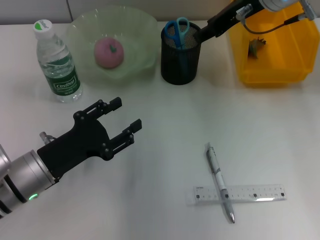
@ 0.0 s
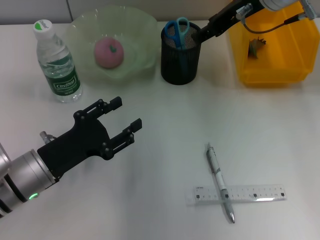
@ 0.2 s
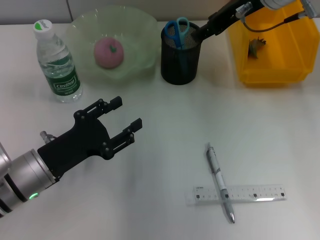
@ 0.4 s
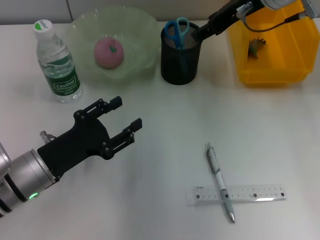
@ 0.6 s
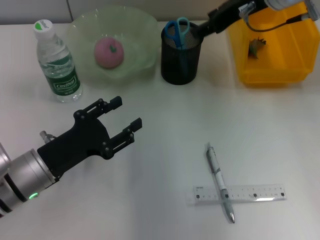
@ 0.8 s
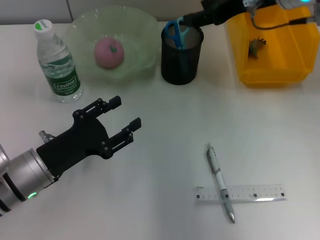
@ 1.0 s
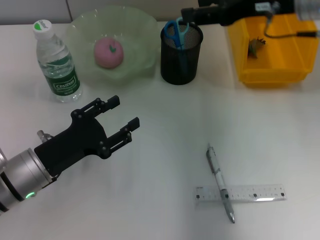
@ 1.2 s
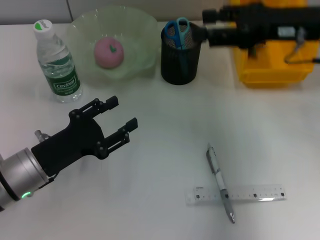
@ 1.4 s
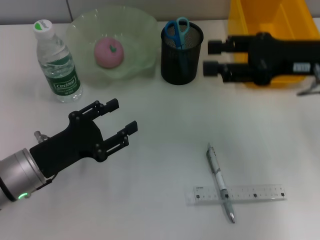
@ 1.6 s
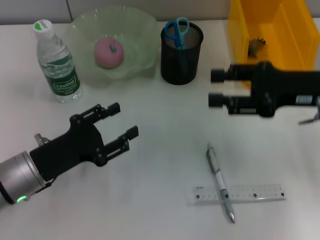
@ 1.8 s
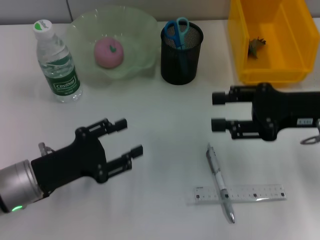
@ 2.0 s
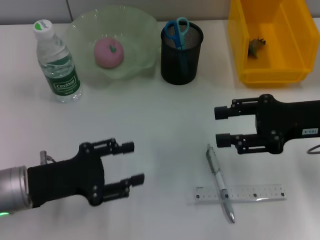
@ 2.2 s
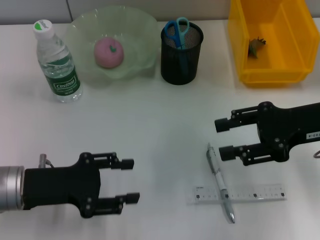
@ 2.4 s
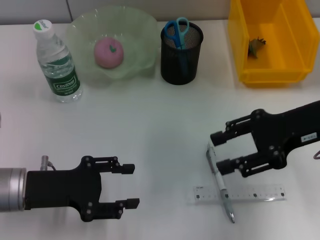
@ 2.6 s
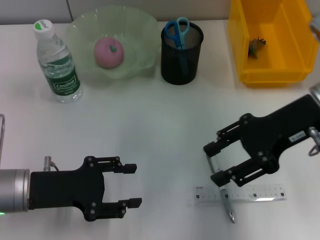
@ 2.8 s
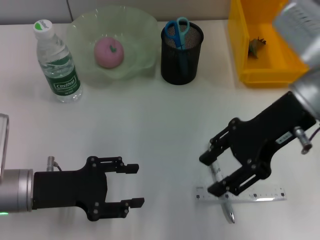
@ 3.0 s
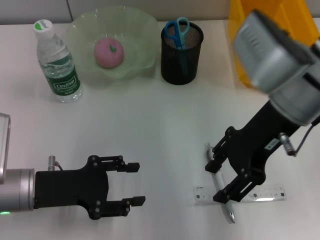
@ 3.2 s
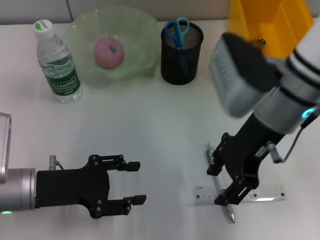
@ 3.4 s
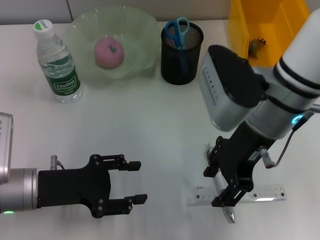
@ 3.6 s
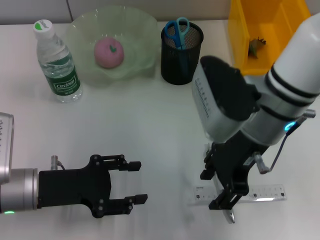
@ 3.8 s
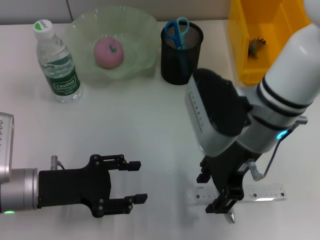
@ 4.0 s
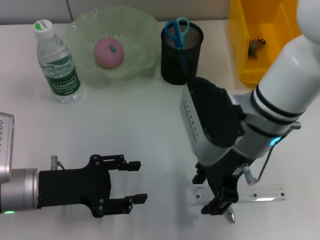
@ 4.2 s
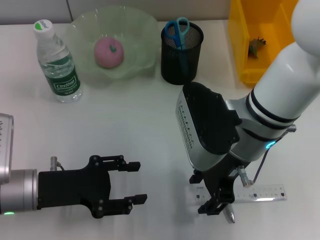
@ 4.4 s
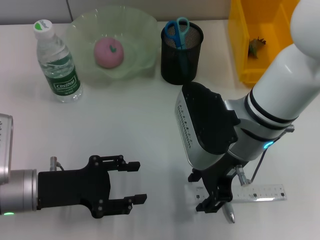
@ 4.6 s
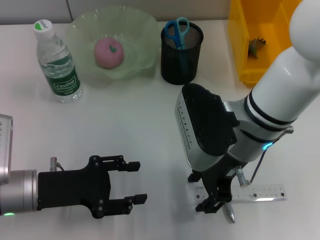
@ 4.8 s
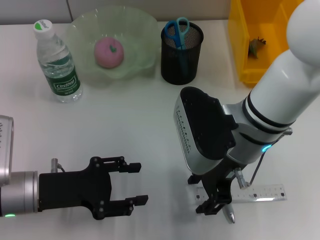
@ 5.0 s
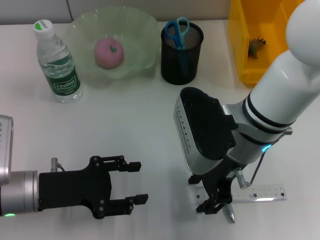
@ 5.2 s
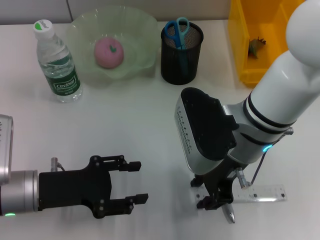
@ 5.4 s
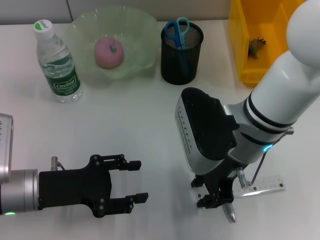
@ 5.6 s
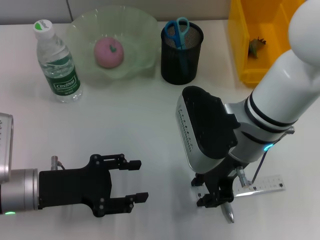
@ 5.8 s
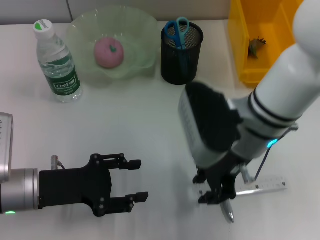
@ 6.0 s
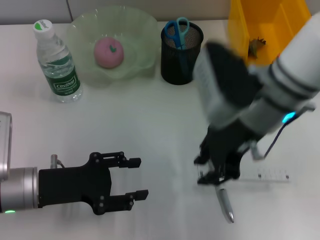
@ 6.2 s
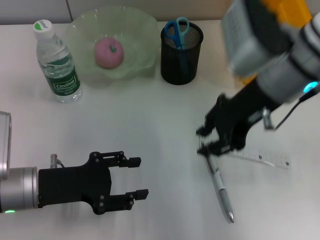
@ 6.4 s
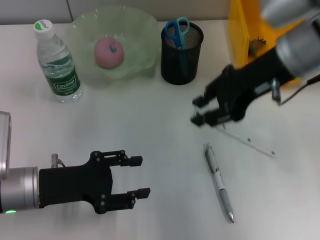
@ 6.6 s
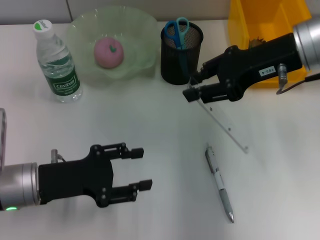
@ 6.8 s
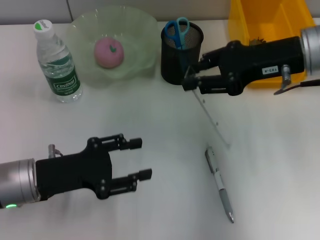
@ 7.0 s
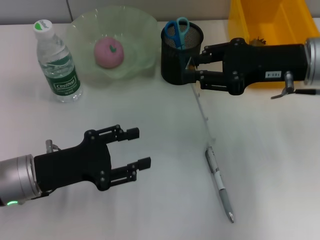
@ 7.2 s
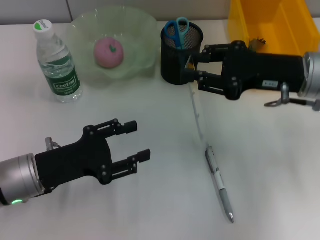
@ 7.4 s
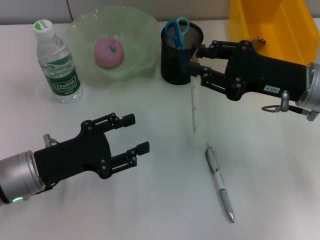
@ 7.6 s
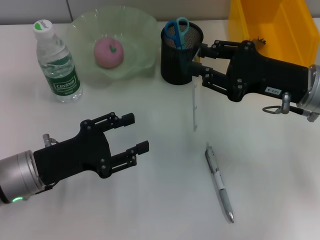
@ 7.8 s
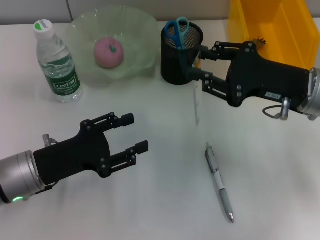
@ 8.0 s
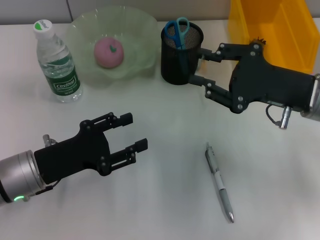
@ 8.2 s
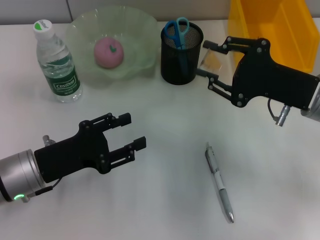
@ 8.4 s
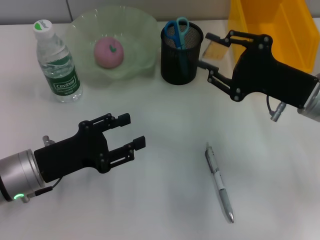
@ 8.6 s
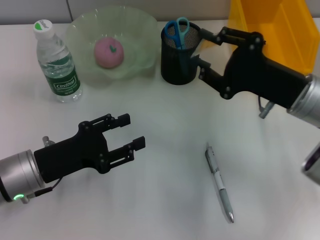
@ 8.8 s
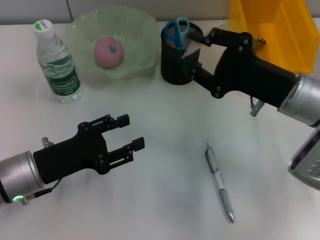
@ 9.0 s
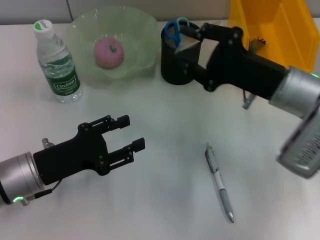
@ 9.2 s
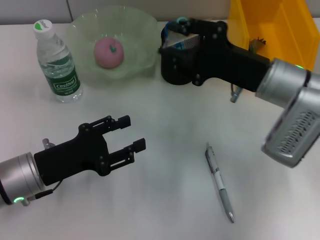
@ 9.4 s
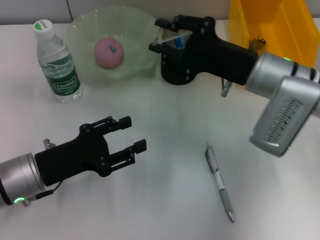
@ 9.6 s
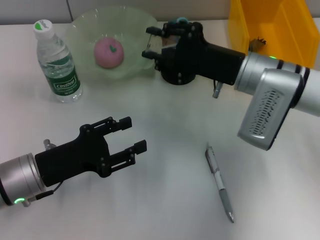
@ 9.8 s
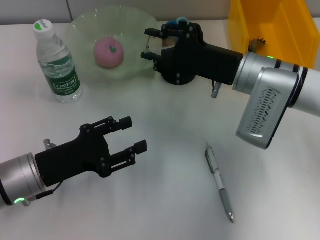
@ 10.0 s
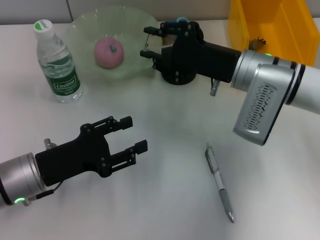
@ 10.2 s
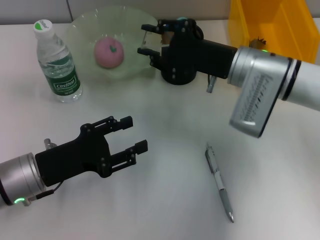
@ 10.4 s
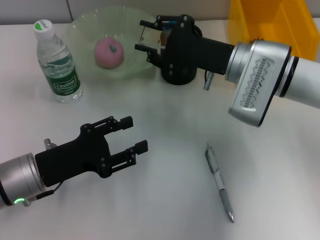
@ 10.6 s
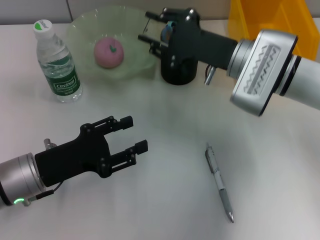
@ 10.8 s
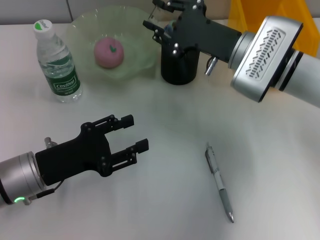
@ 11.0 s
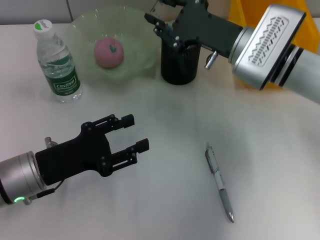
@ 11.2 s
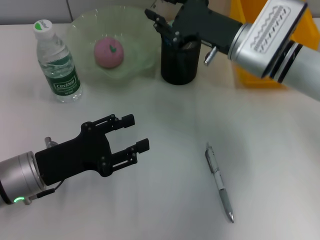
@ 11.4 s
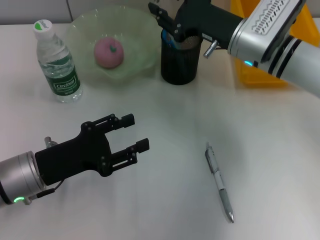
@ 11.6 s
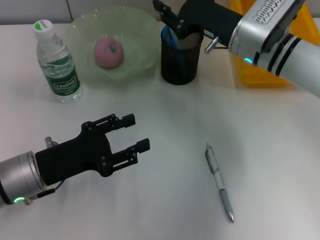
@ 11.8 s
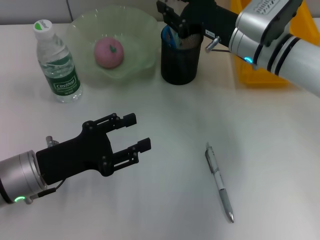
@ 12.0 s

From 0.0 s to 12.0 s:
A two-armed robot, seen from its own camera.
Step, from 0.2 s to 5.6 s: Grab the ruler with the right hand.
From 0.0 s to 1.6 s: The right gripper goes about 15 cm backward, to the right and downward, and opens.
From 1.6 s to 3.0 s: The right gripper heads to the left, covering about 5 cm.
From 3.0 s to 4.4 s: The right gripper moves to the left and downward, some 10 cm.
From 4.4 s to 6.0 s: The right gripper closes.
From 6.0 s to 7.6 s: The right gripper goes some 10 cm to the right.
From 9.0 s to 10.4 s: The right gripper goes roughly 10 cm to the left and forward.

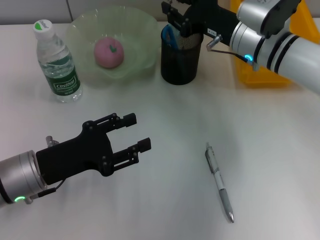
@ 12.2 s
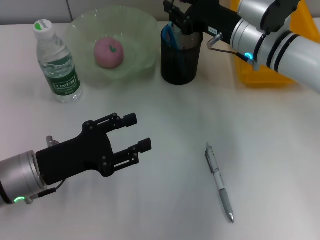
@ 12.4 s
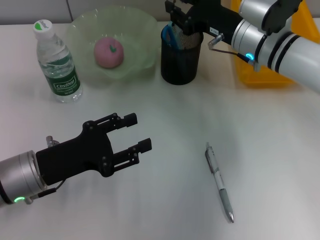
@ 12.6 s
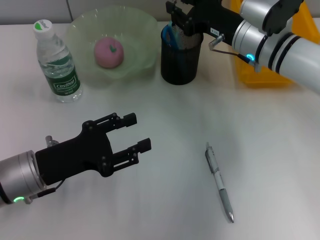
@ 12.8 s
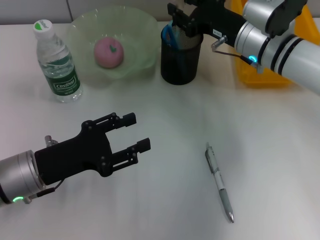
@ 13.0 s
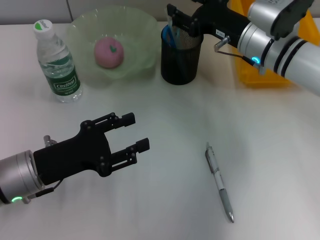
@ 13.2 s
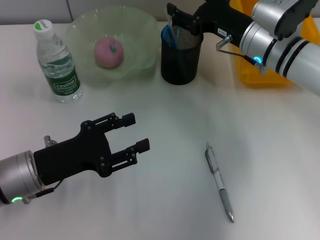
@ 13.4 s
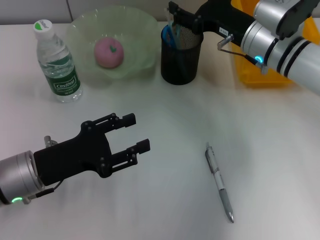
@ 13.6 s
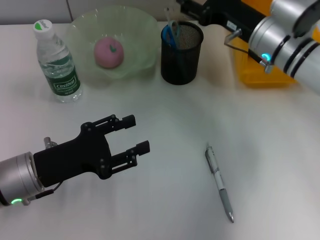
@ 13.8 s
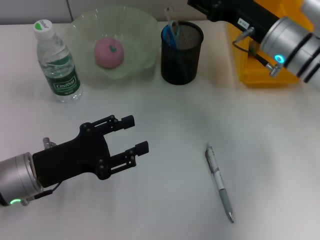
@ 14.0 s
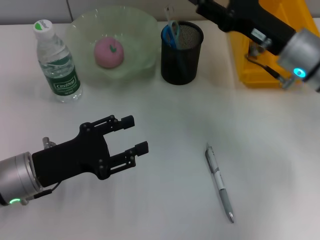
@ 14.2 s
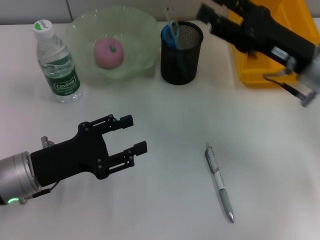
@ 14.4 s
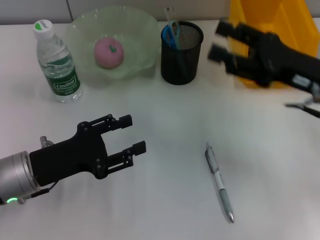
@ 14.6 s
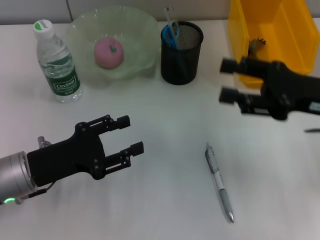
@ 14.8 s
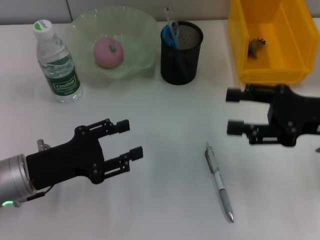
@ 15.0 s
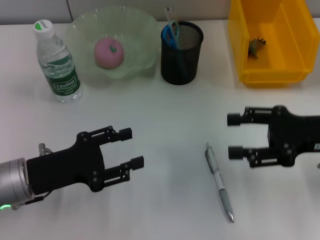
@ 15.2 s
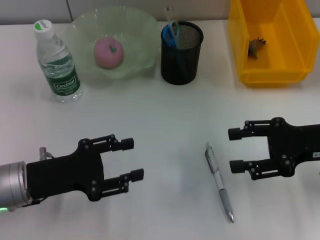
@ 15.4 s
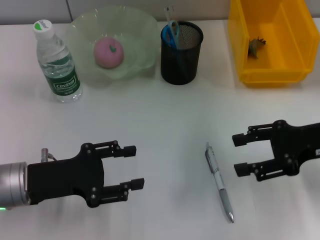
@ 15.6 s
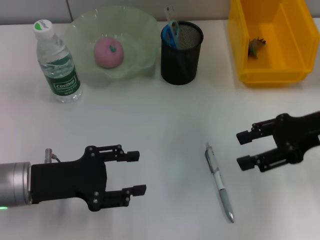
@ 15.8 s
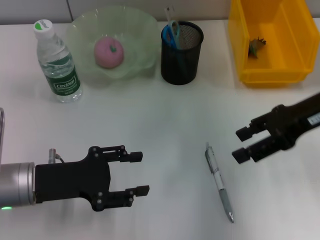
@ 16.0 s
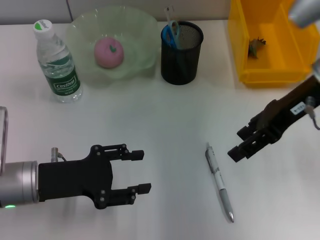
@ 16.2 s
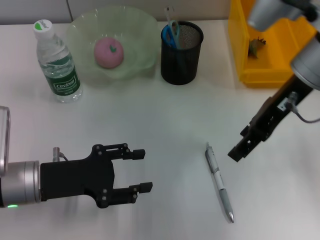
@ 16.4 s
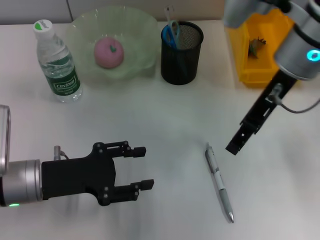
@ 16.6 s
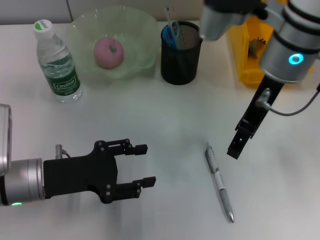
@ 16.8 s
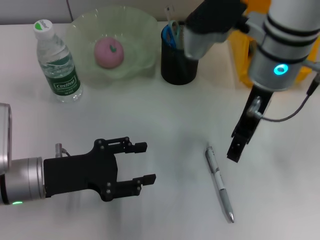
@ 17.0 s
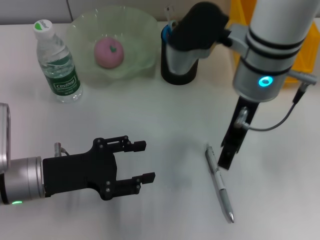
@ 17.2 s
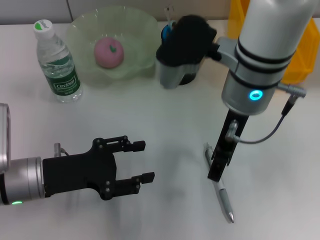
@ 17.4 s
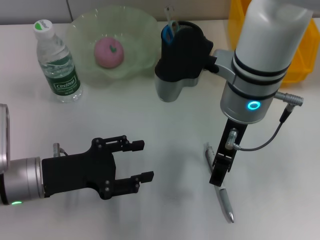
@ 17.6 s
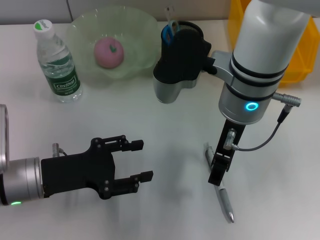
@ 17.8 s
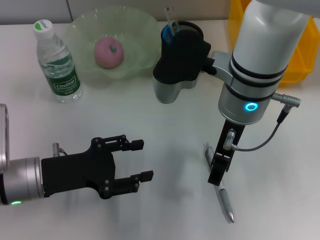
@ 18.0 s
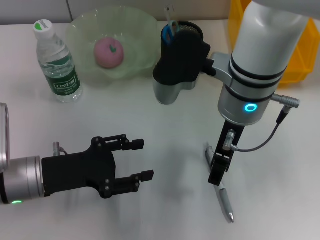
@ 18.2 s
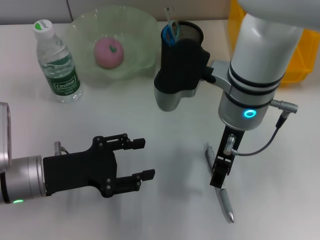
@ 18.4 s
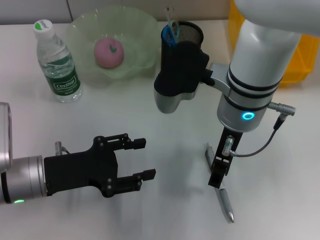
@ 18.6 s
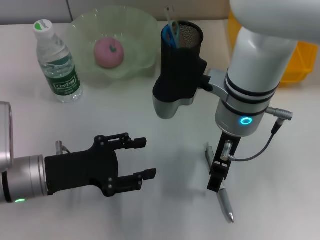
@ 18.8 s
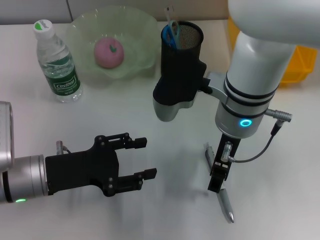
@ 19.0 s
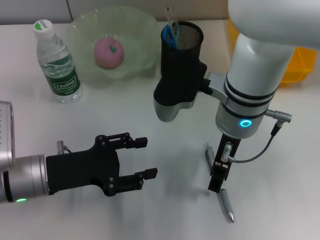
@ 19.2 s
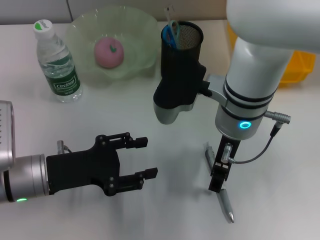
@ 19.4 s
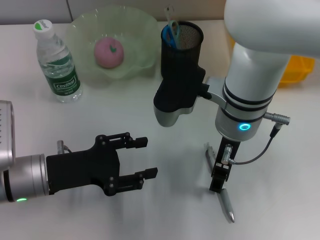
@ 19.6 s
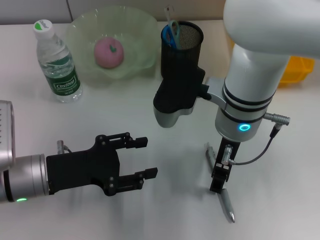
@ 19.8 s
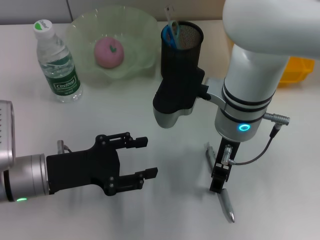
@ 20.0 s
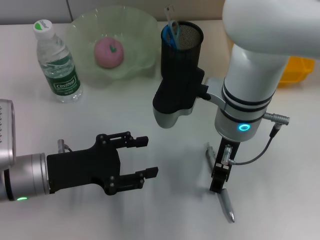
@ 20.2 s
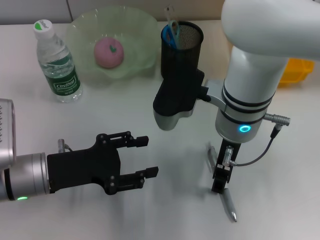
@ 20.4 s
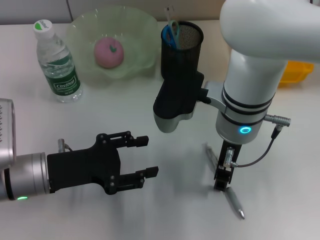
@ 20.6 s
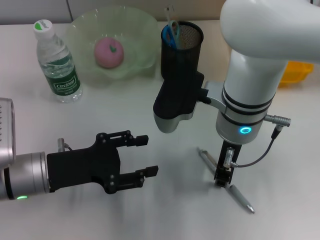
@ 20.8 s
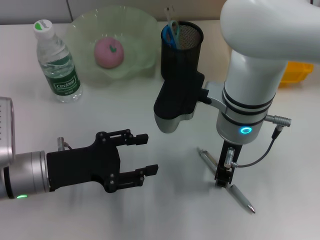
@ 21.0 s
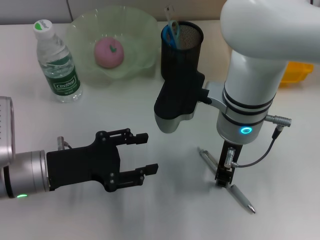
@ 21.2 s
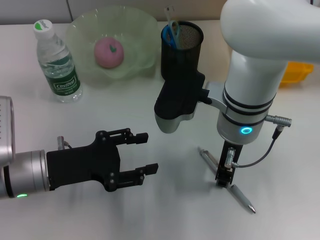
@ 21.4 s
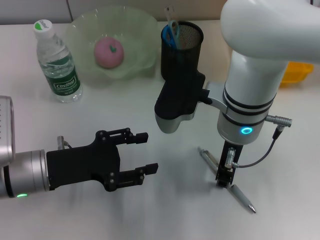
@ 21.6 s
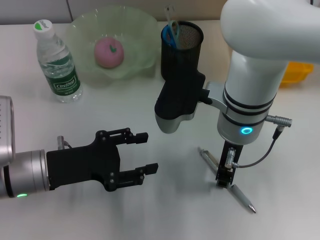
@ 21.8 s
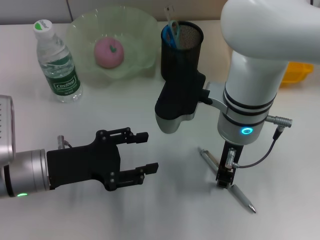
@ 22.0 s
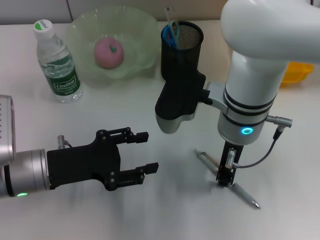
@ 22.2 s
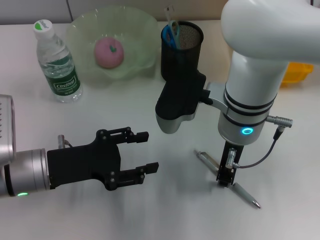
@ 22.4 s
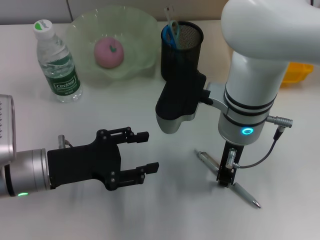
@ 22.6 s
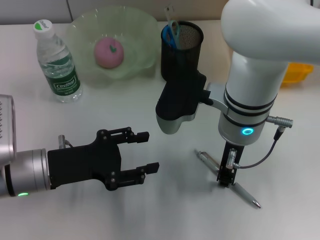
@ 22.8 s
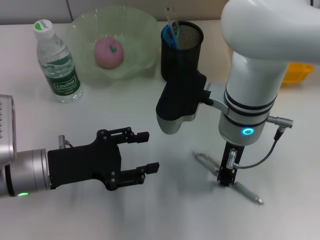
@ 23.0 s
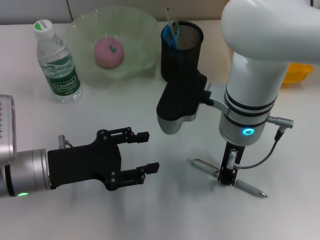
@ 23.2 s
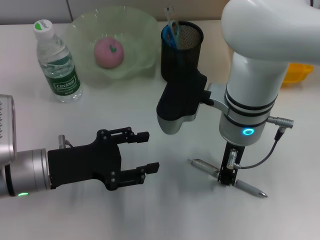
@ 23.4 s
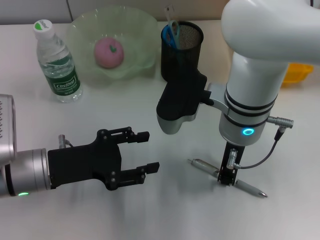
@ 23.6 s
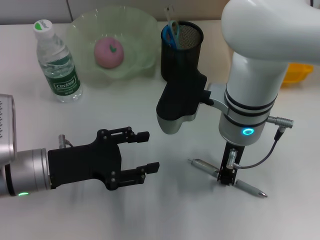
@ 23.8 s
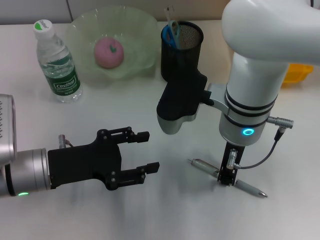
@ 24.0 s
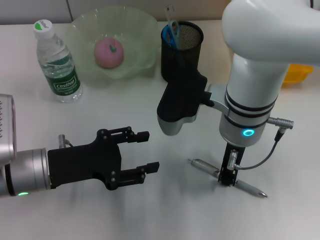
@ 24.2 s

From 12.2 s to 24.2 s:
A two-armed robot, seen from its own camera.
From 12.2 s to 13.8 s: The right gripper opens its fingers.
From 13.8 s to 15.2 s: The right gripper shifts about 15 cm backward and to the right.
From 15.2 s to 16.6 s: The right gripper goes about 20 cm to the left, upward and forward.
From 16.6 s to 18.2 s: The right gripper shifts roughly 5 cm to the left.
From 18.2 s to 19.8 s: The grippers make only small movements.
From 19.8 s to 21.2 s: The right gripper closes up.
From 21.2 s to 24.2 s: The two grippers keep their place.
